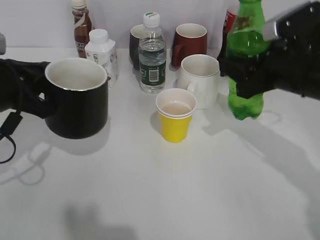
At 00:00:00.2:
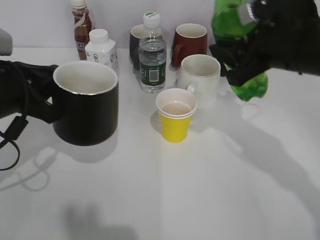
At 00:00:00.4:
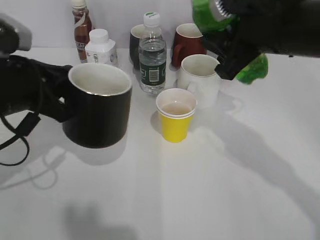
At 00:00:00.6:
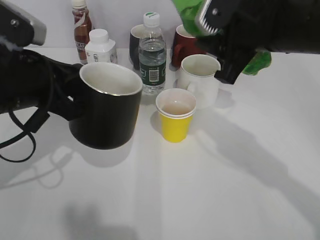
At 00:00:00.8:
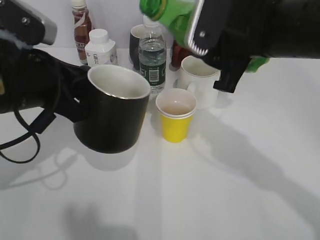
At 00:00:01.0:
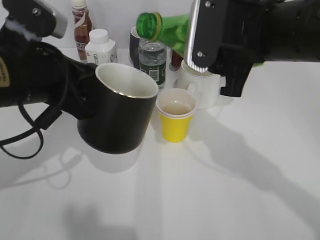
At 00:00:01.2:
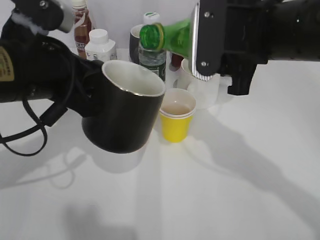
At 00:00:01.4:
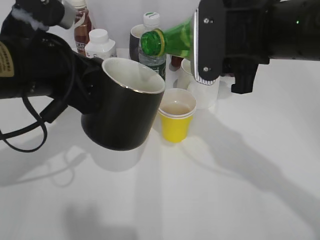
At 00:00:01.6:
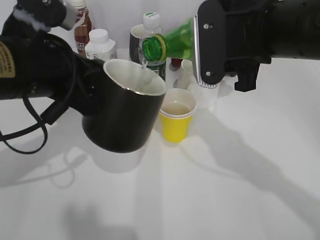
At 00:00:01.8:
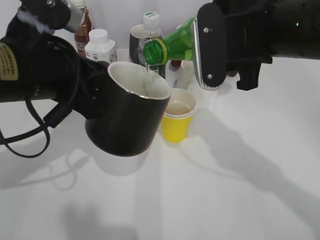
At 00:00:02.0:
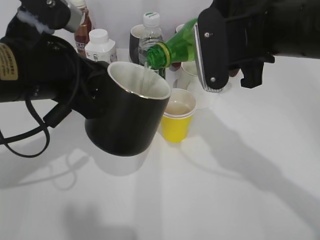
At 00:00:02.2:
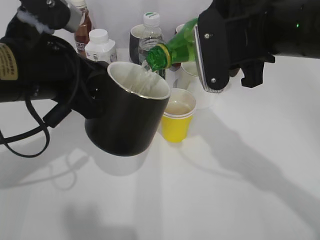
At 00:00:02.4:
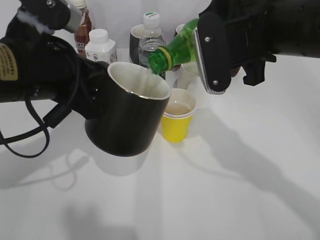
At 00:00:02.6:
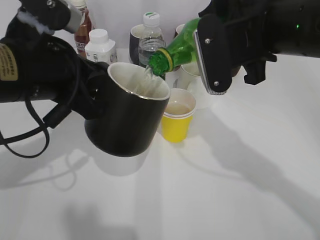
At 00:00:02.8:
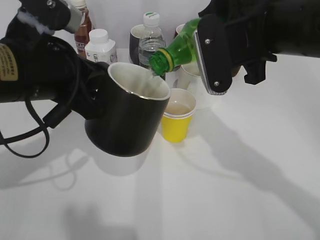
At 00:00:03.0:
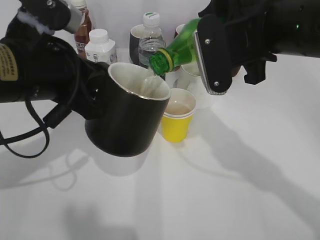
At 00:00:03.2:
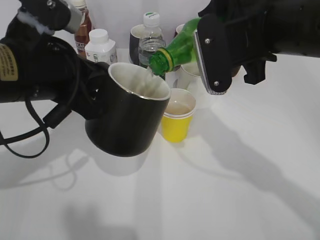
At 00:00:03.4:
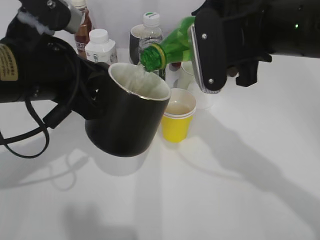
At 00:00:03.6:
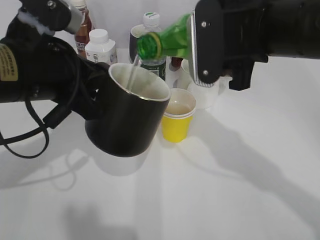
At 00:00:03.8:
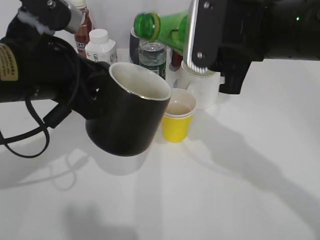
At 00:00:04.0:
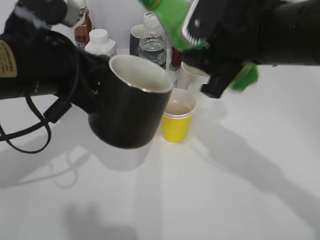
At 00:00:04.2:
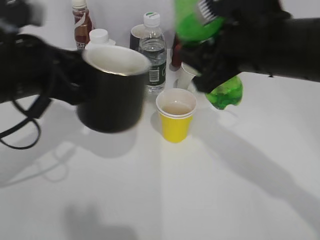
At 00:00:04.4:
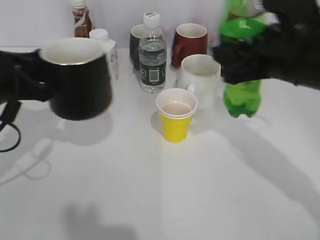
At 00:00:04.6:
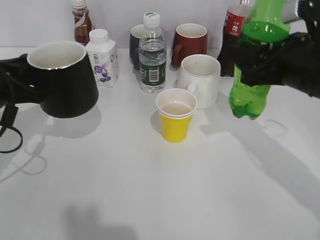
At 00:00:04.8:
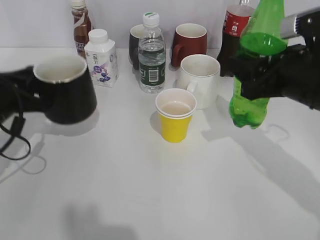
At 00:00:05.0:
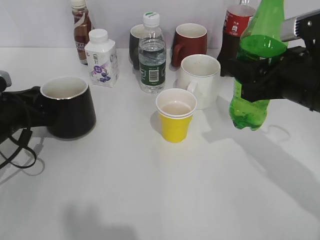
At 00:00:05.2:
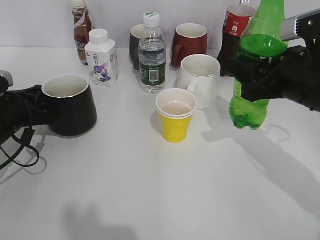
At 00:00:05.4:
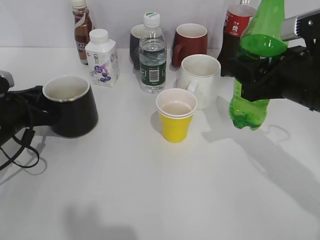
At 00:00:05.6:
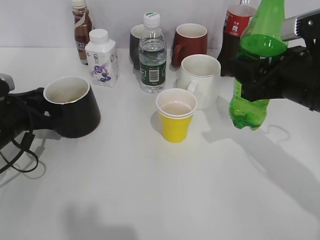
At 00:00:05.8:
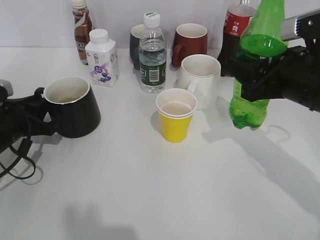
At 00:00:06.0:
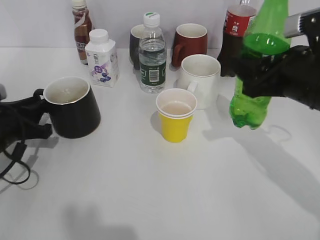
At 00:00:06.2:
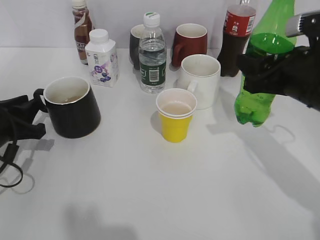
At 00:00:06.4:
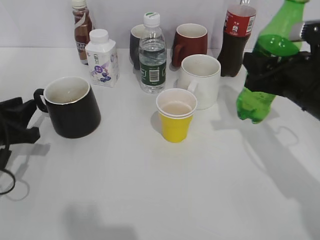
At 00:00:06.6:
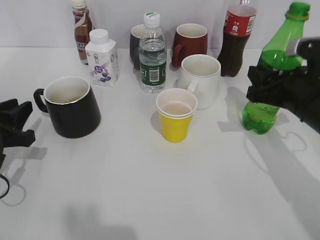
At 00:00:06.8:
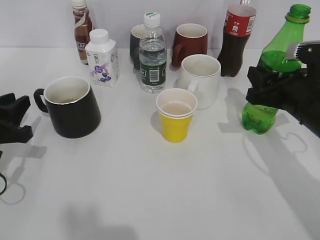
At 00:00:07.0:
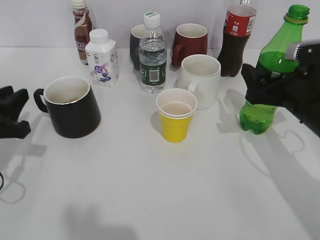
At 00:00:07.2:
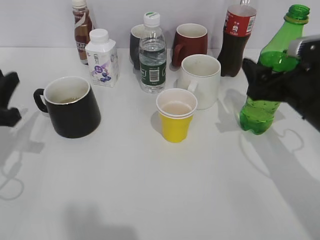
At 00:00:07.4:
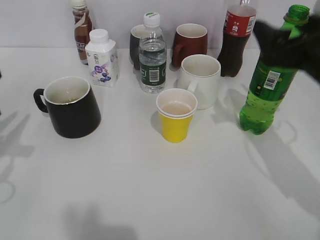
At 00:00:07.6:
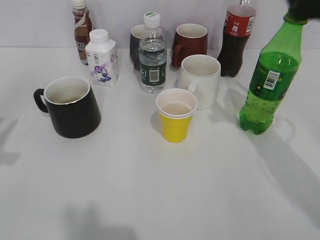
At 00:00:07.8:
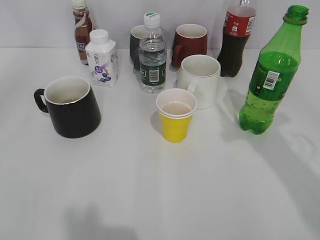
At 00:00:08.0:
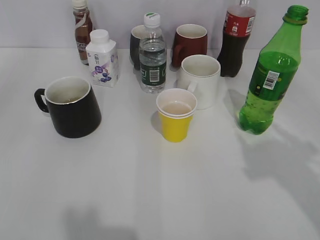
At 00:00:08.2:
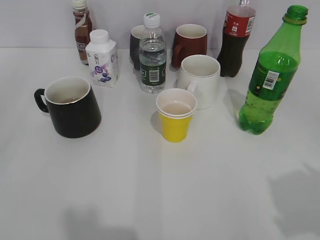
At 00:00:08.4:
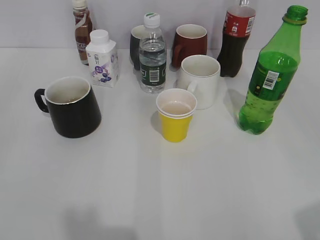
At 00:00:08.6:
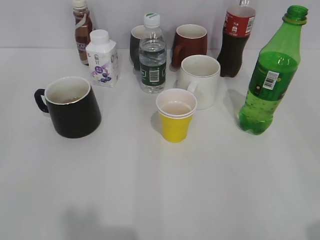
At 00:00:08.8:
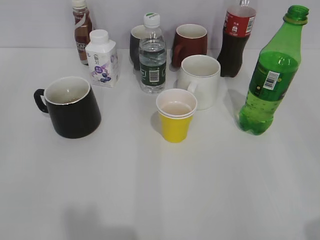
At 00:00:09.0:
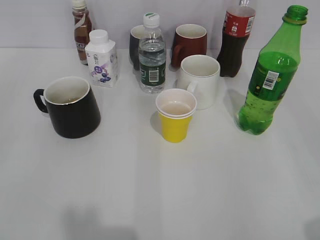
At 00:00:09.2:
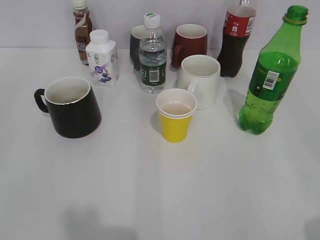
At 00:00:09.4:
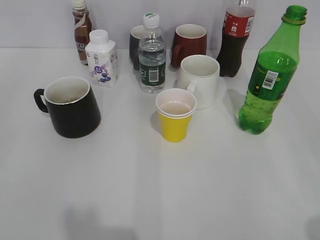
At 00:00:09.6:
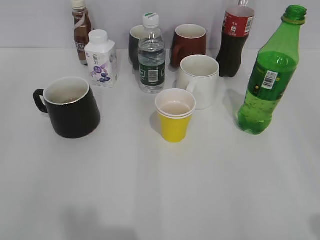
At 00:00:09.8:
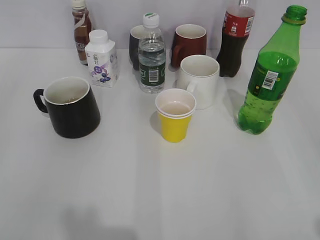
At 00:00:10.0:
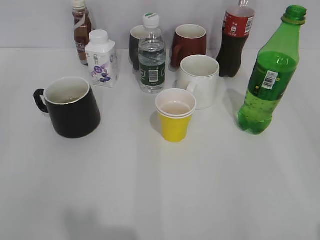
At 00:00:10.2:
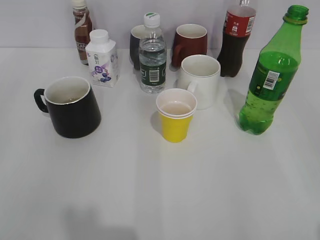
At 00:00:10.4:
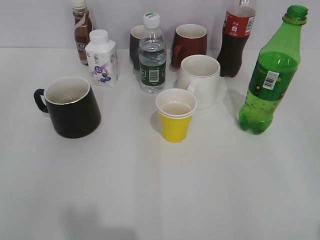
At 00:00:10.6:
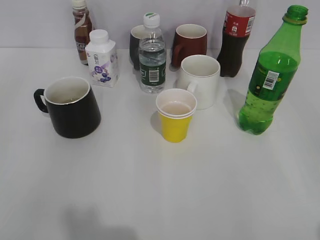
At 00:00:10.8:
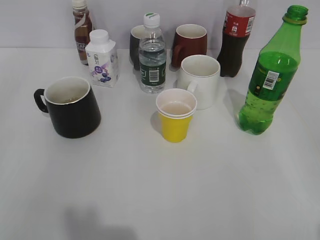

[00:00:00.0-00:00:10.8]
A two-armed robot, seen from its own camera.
Step, 00:00:00.0 to 00:00:03.8: Pour the sprite from bottle to cup with right gripper.
Step, 00:00:04.0 to 00:00:05.8: Place the black cup on the table with left gripper.
Step, 00:00:06.0 to 00:00:07.2: Place the sprite bottle on the table with right gripper.
00:00:00.0 to 00:00:01.6: The left gripper heads to the right and upward, covering some 10 cm, while the right gripper shifts approximately 10 cm to the left and upward.
00:00:01.6 to 00:00:03.0: There are only small adjustments of the grippers.
00:00:03.0 to 00:00:04.6: The right gripper heads to the right and downward, covering roughly 10 cm; the left gripper shifts about 10 cm to the left and downward.
00:00:04.6 to 00:00:06.2: The left gripper heads downward, covering roughly 5 cm, and opens up.
00:00:06.2 to 00:00:07.8: The left gripper goes some 25 cm upward and backward. The right gripper heads upward and backward, covering approximately 15 cm, and opens up.

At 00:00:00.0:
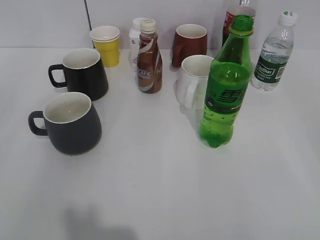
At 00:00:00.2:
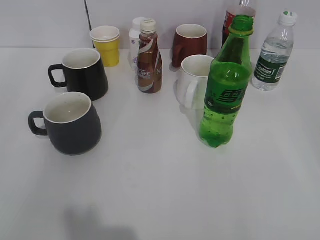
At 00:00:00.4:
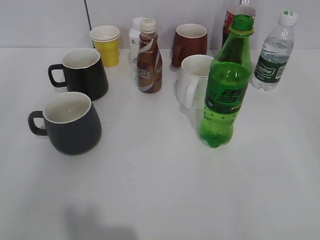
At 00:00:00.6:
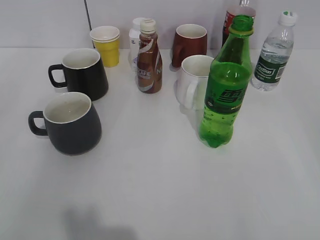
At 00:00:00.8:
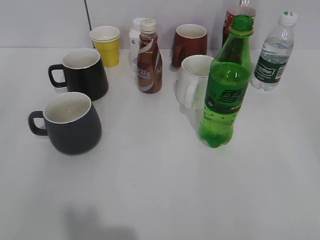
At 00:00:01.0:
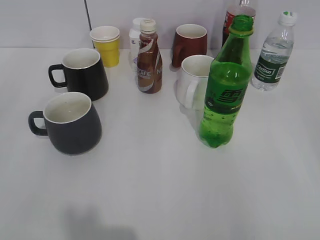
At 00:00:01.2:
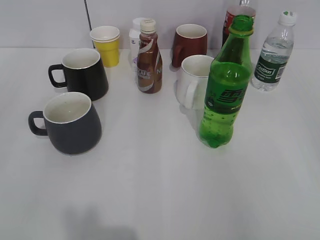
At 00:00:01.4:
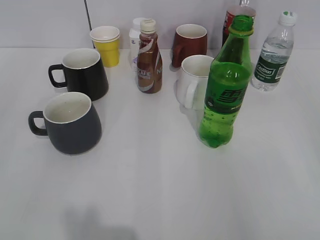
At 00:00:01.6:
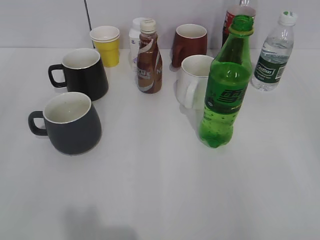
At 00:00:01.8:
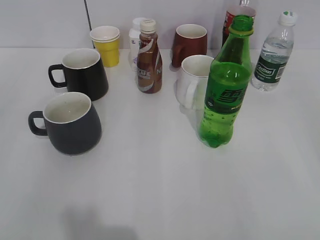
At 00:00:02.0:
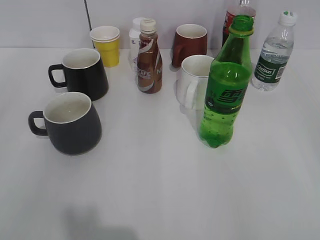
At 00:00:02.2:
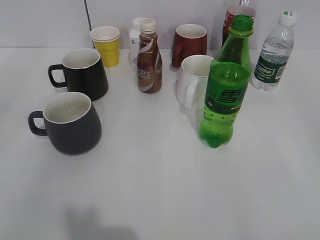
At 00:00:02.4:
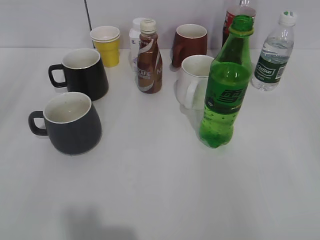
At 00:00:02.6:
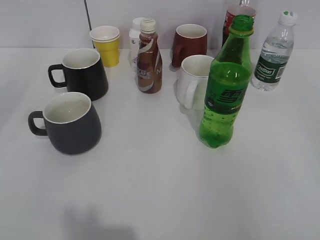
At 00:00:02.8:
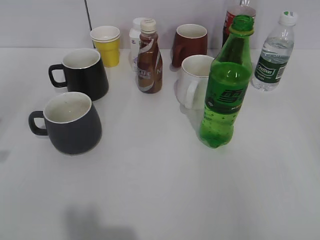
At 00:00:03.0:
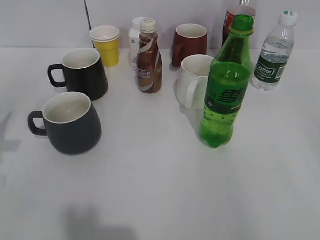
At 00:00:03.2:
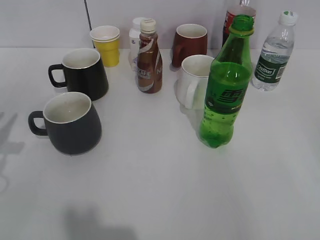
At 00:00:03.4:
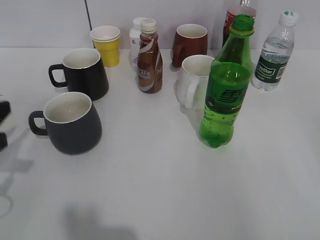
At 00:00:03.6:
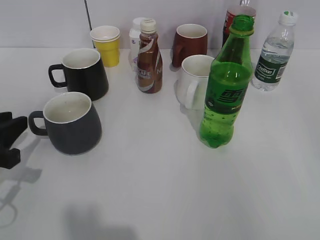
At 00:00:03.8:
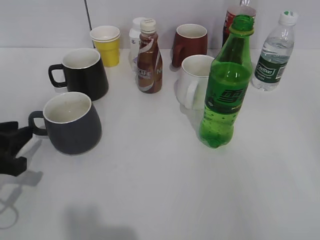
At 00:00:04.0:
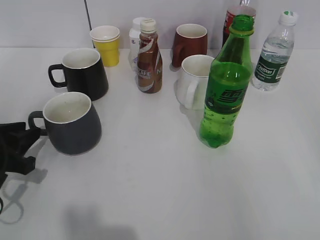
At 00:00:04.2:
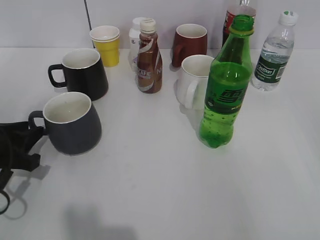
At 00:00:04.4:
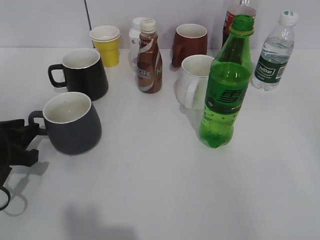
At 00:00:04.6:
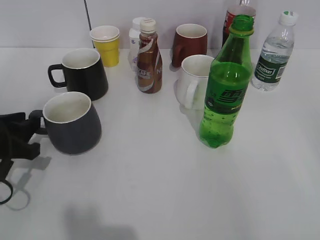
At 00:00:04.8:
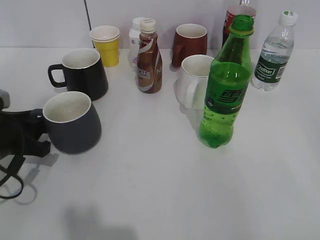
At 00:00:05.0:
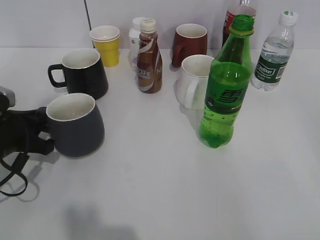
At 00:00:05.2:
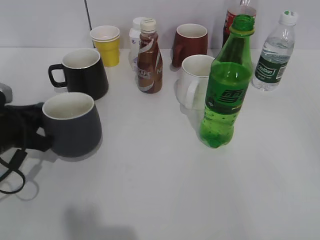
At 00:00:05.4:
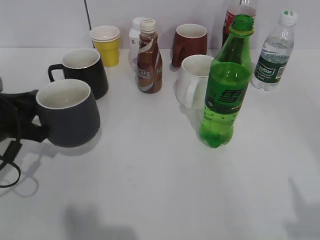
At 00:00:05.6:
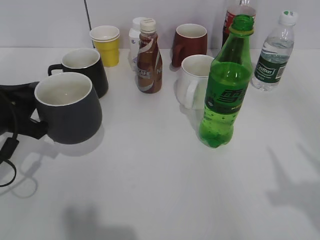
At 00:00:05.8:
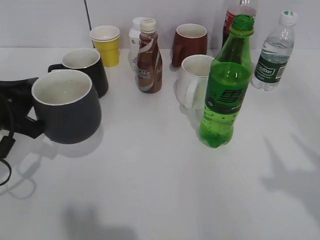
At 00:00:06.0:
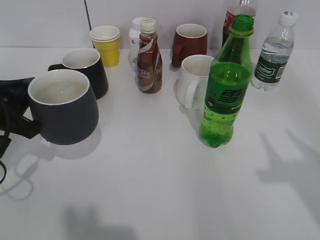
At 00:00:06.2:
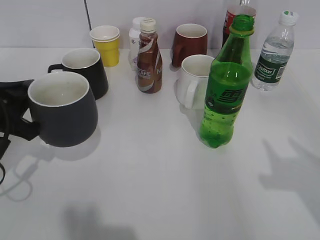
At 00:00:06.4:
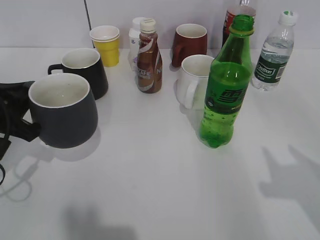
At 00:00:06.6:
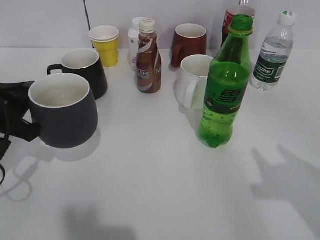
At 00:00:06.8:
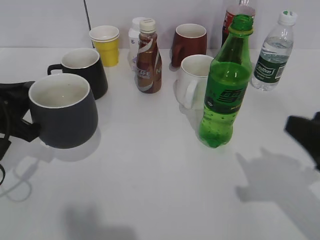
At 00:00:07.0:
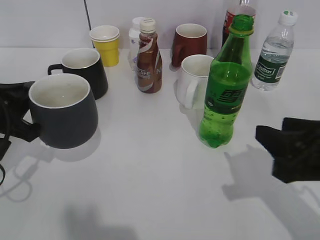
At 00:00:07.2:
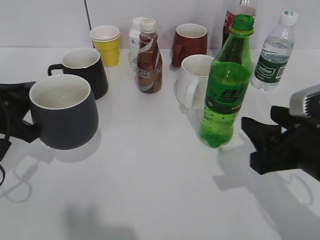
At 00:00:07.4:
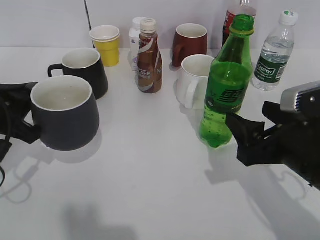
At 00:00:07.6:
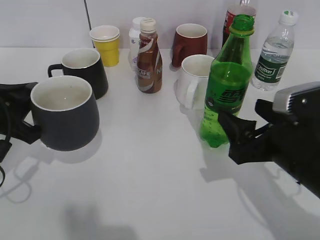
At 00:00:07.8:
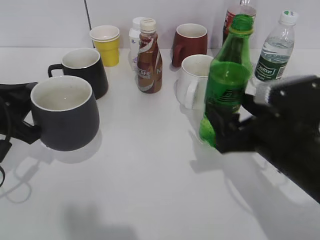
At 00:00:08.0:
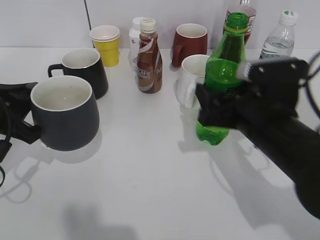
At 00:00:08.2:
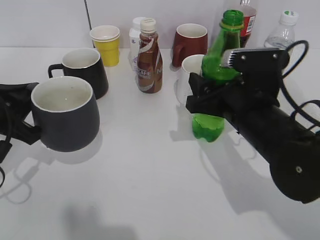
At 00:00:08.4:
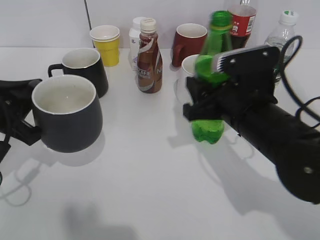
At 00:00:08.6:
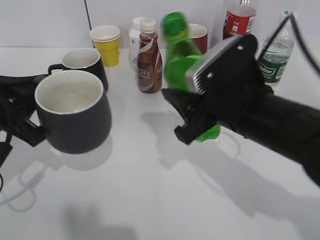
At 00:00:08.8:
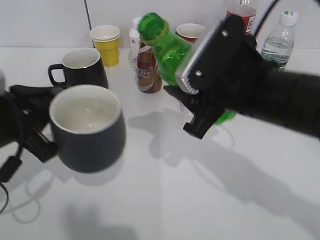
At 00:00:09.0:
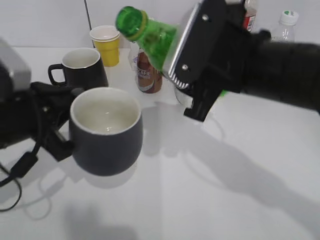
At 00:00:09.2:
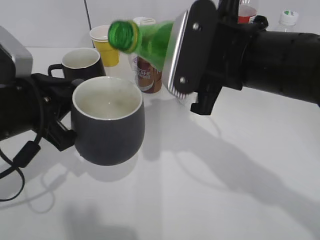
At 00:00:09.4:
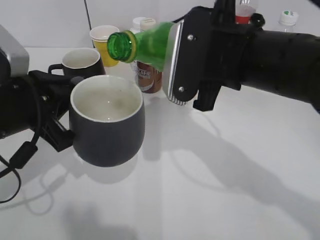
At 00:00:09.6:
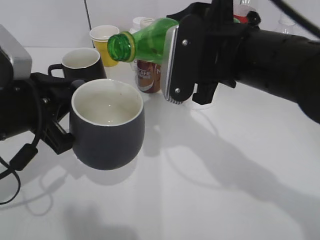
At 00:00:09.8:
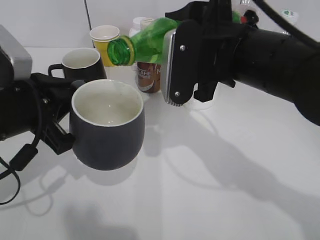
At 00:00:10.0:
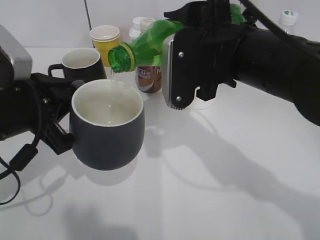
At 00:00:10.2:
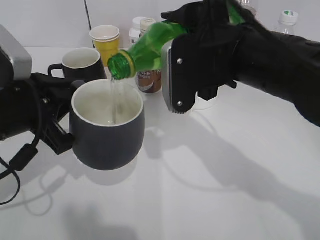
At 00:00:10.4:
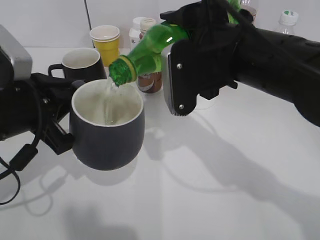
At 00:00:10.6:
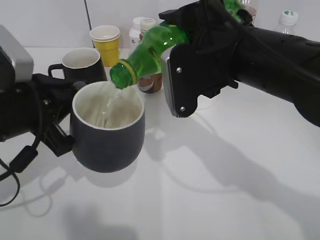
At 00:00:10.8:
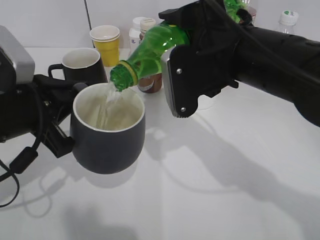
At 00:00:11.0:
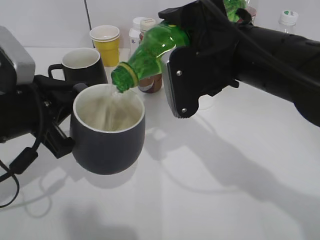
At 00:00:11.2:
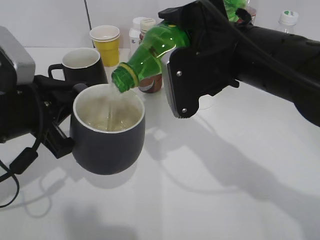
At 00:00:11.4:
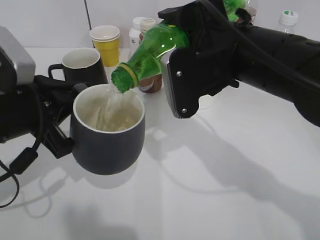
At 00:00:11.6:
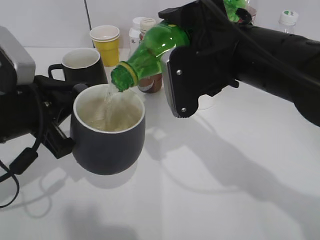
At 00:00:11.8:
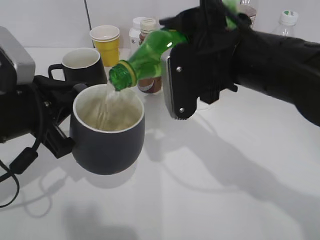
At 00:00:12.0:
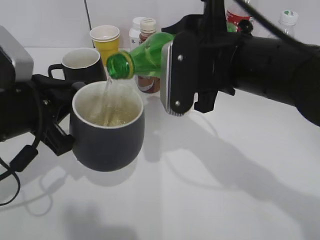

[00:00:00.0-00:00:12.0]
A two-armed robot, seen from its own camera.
Step, 00:00:02.0 to 00:00:05.0: Grasp the grey cup with left gripper.
Step, 00:00:05.2 to 00:00:06.2: Lift the grey cup with left gripper.
Step, 00:00:06.4 to 00:00:08.2: Grasp the bottle with sprite with right gripper.
00:00:03.0 to 00:00:04.4: The left gripper travels downward by about 10 cm.
00:00:04.4 to 00:00:06.0: The left gripper is displaced upward by roughly 5 cm, and closes its fingers.
00:00:06.0 to 00:00:07.6: The right gripper shifts some 20 cm downward, to the left and forward, and opens.
00:00:07.6 to 00:00:09.0: The right gripper goes some 15 cm upward, to the left and forward, and closes its fingers; the left gripper shifts about 5 cm to the right.
00:00:10.4 to 00:00:12.0: The grippers make only small movements.
